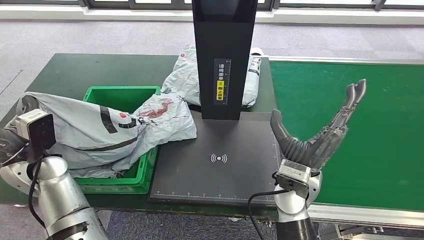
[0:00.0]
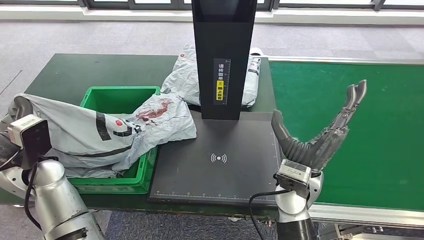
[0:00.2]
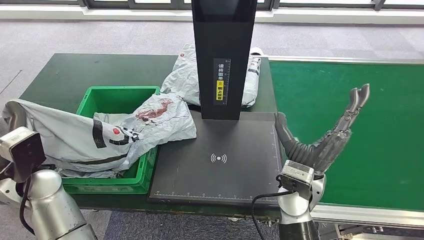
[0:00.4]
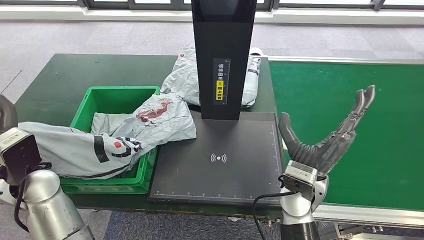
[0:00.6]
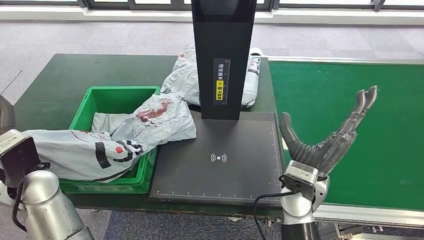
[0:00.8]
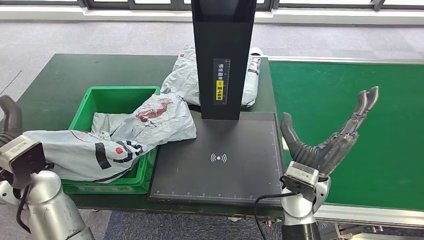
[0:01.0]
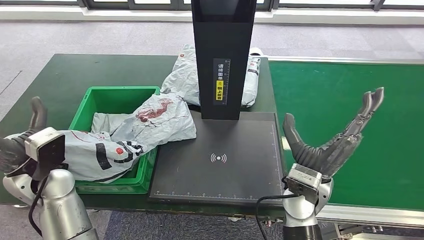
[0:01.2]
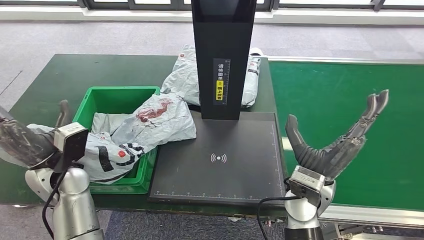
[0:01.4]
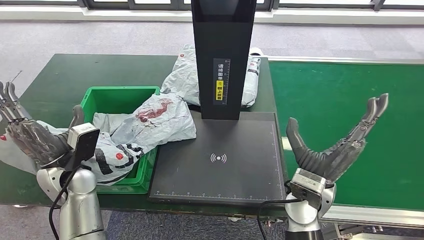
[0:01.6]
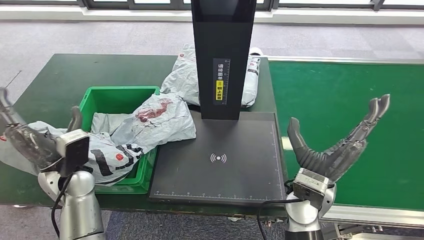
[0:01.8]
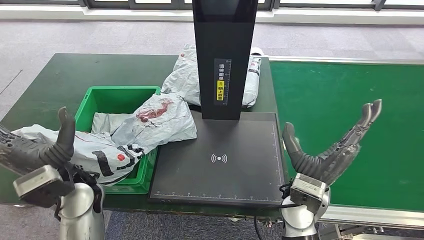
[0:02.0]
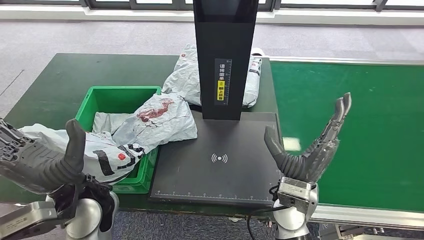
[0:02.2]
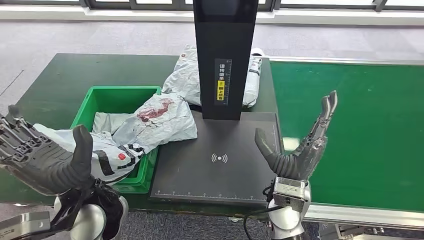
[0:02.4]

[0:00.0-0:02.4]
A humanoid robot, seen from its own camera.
Step, 0:00.0 to 0:02.2: Place the parcel into the delivery box.
0:00.0 to 0:01.2: The hands move only a little.

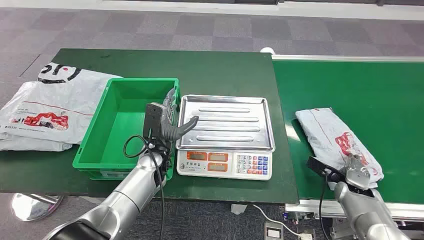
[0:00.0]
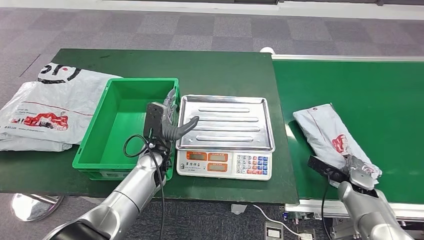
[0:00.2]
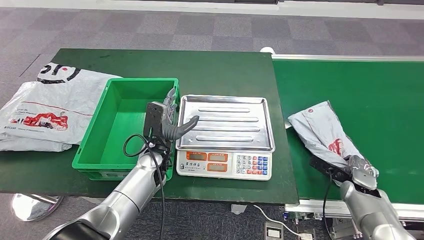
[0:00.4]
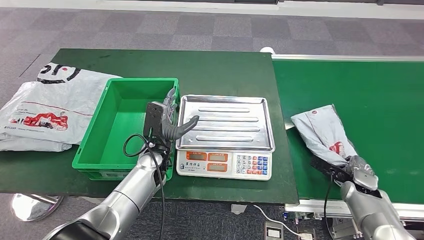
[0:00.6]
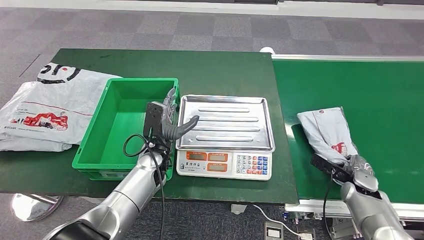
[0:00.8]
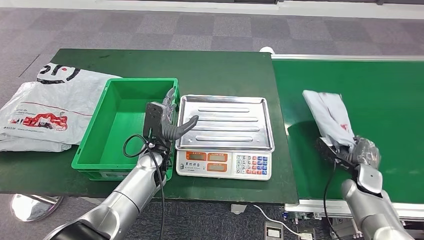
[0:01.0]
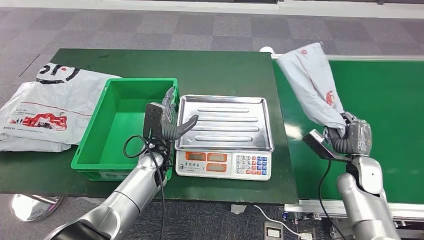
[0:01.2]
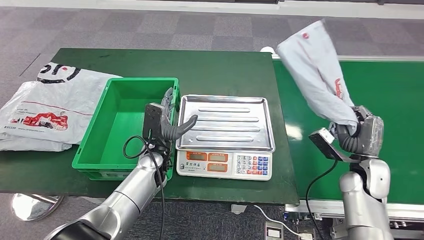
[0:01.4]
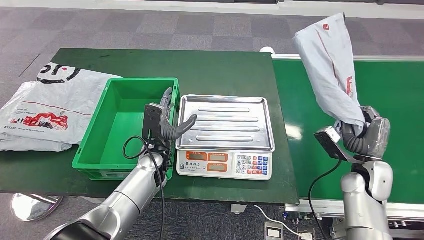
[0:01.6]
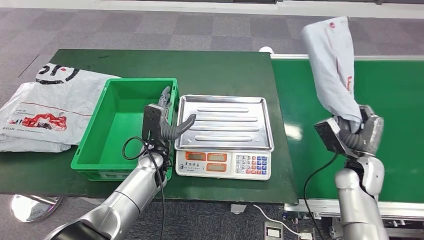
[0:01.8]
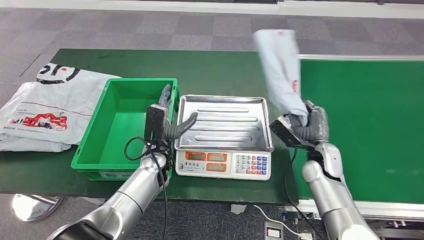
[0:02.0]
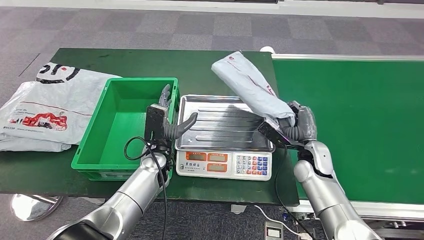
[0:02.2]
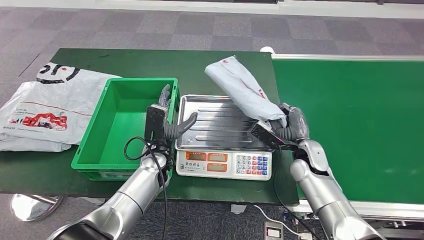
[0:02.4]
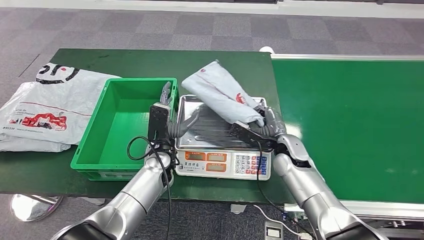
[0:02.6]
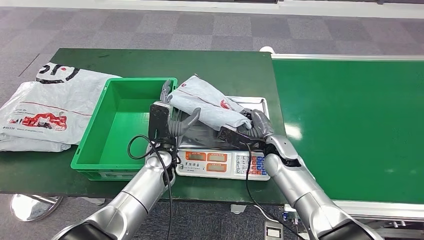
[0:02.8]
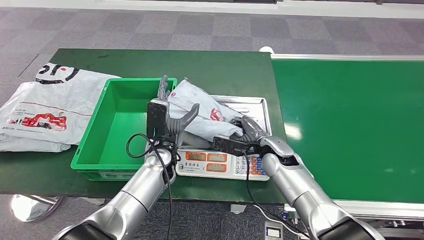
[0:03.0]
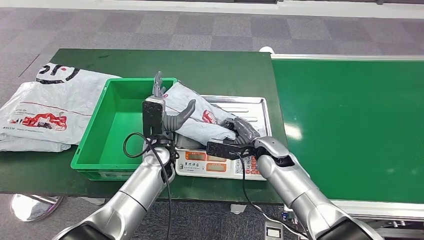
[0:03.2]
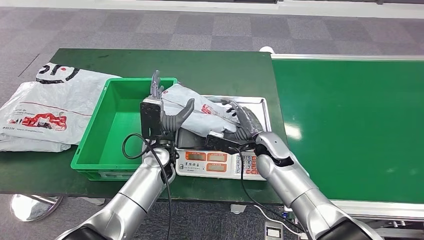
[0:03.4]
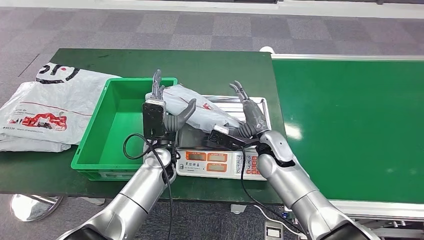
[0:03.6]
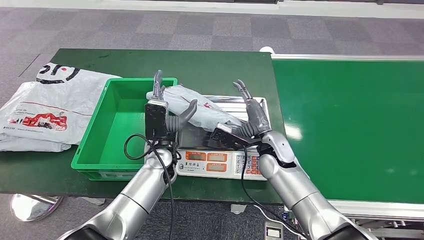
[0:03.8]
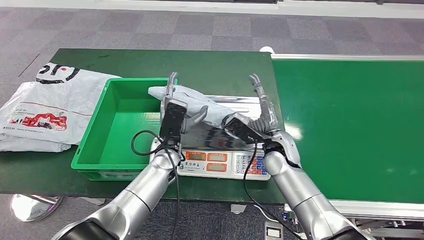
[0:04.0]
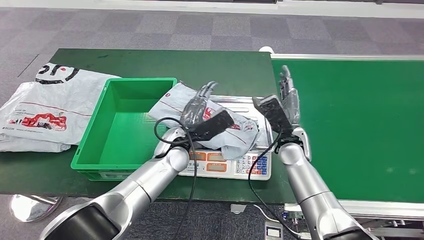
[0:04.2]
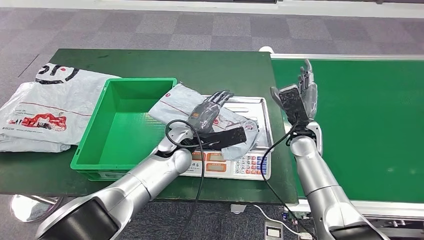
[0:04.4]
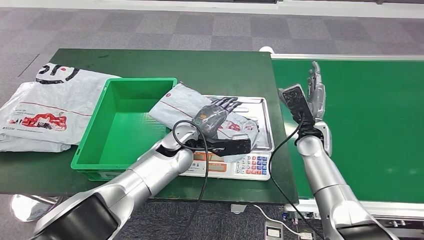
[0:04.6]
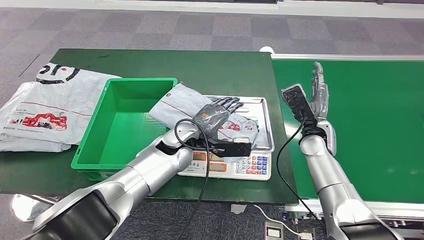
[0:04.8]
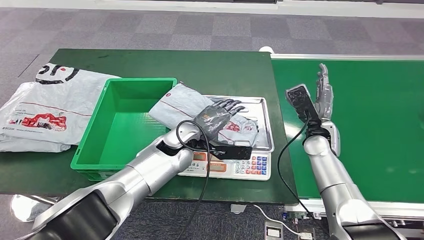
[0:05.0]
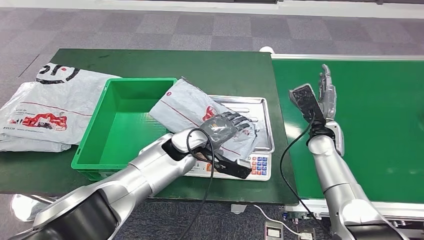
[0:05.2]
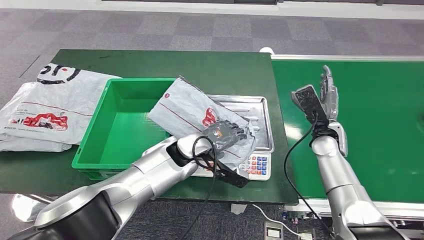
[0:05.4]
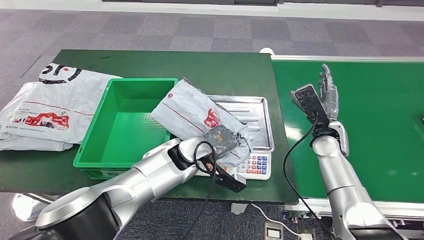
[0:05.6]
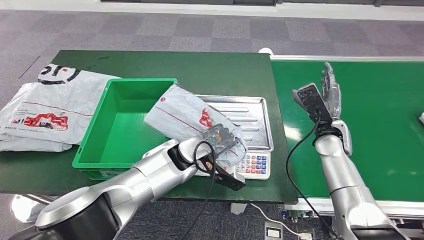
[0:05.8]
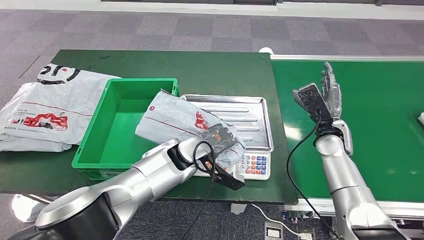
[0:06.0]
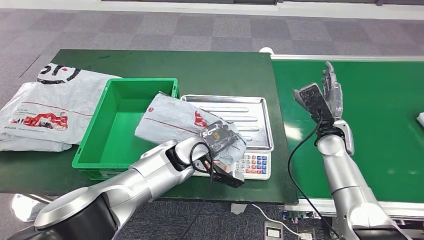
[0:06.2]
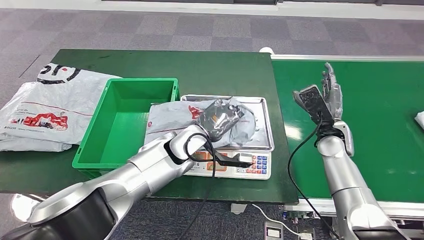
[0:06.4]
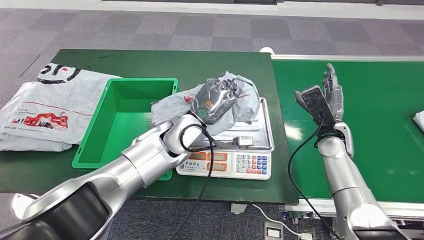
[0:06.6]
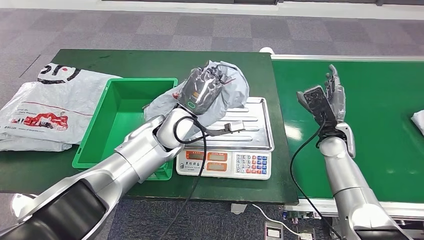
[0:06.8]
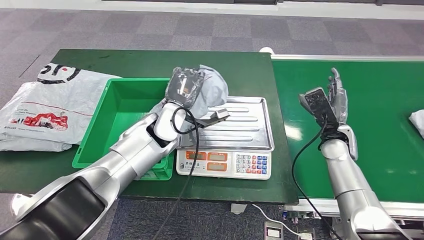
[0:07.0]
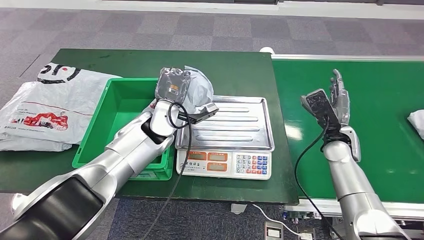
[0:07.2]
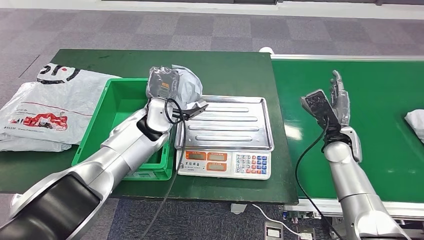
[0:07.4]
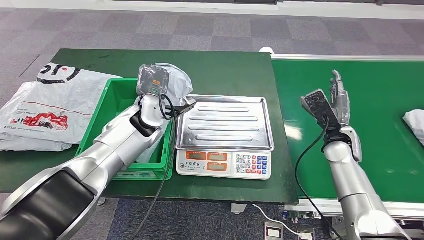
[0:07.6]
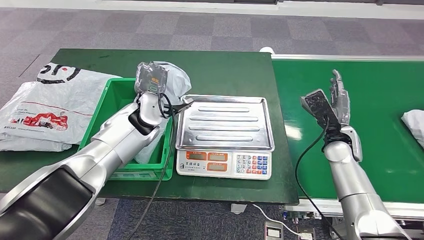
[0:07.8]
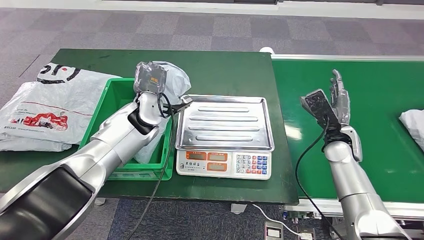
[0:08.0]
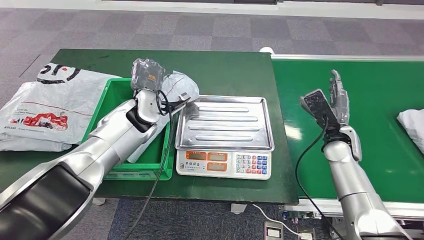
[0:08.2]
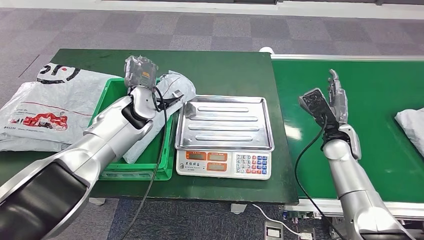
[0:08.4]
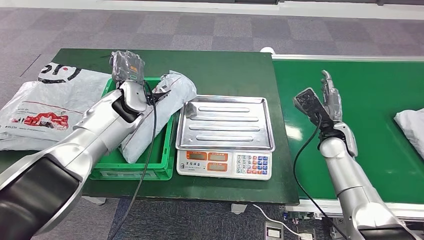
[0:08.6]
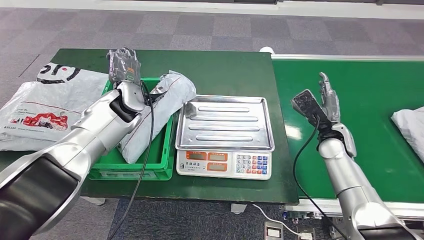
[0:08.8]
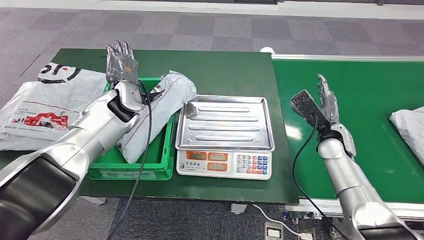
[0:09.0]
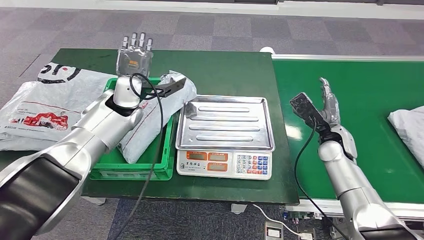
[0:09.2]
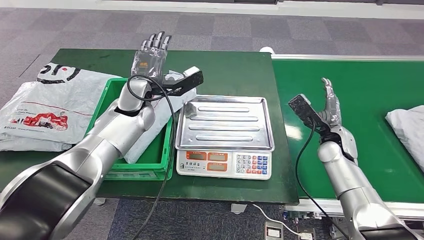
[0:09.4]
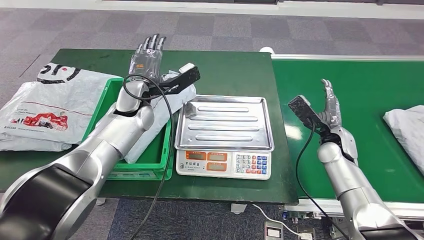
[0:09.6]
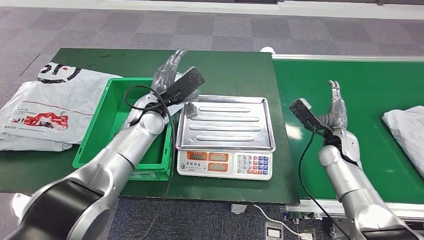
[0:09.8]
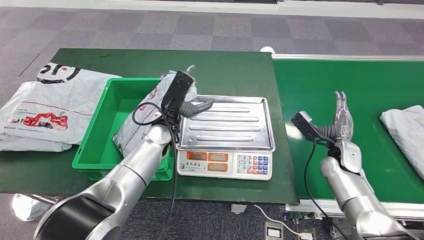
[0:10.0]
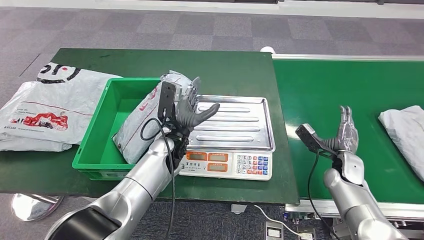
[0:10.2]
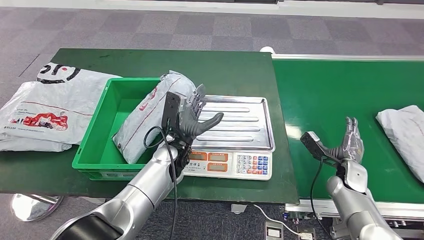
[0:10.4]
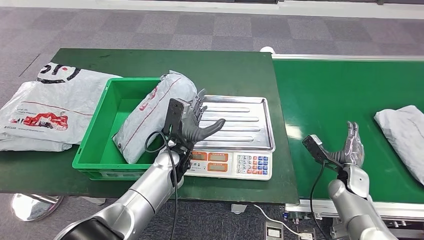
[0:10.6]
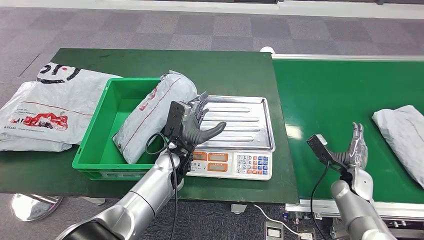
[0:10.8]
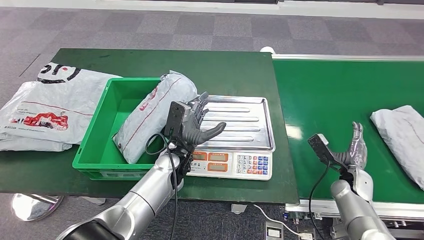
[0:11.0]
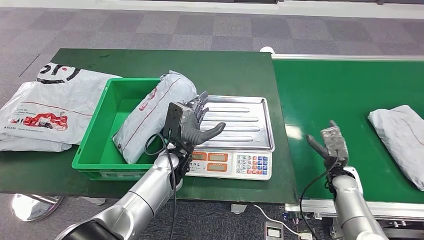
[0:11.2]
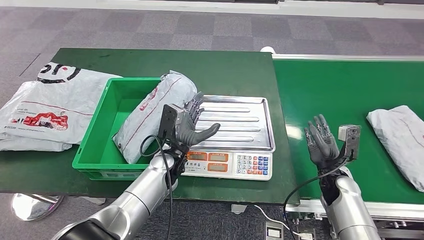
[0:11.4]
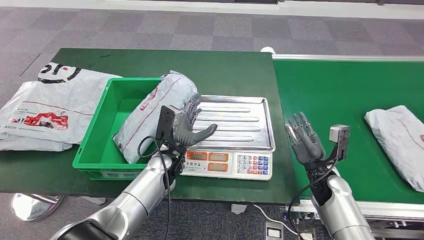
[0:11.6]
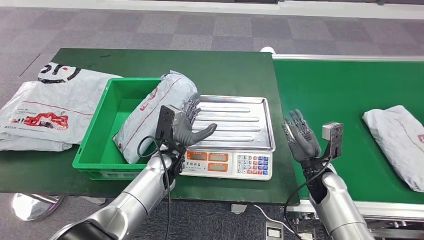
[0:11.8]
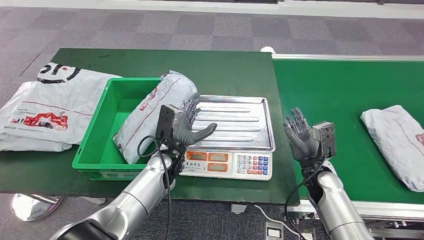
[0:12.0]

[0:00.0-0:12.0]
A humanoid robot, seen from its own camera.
Step, 0:00.0 to 0:01.6: Take the parcel off the conveyor belt.
Step, 0:02.0 to 0:04.2: Place the parcel onto the inbound machine.
Step, 0:04.4 to 0:07.2: Pick up the parcel from the inbound machine.
Step, 0:07.4 to 0:09.6: Put the parcel inside the courier box.
0:03.0 to 0:04.4: The right hand is displaced to the right by some 5 cm; the left hand ends up approximately 5 cm from where it was.
0:10.4 to 0:12.0: The right hand is displaced to the left by some 10 cm.

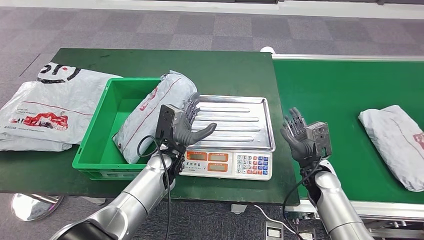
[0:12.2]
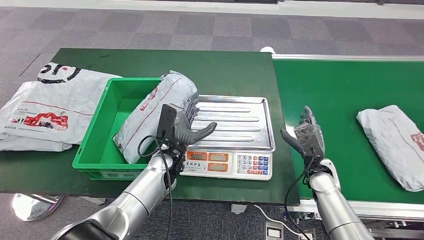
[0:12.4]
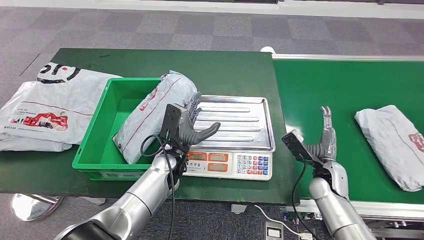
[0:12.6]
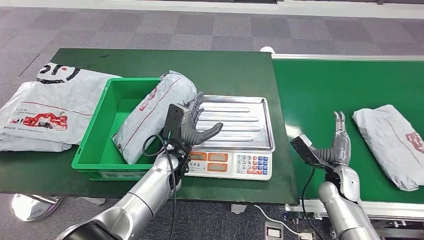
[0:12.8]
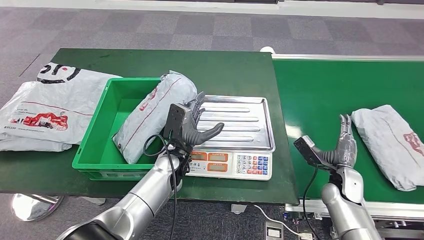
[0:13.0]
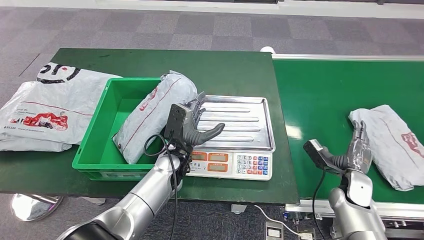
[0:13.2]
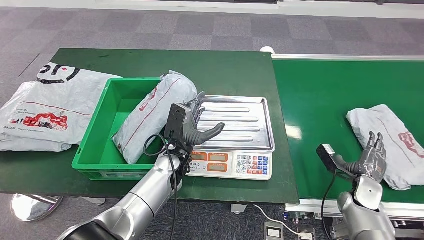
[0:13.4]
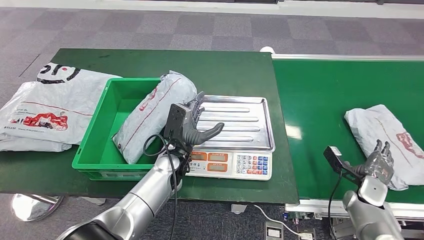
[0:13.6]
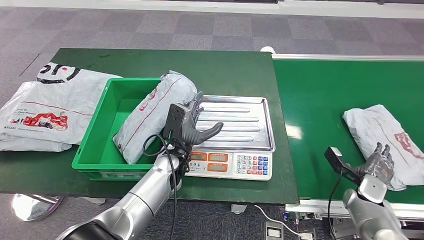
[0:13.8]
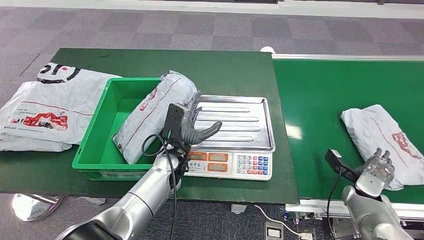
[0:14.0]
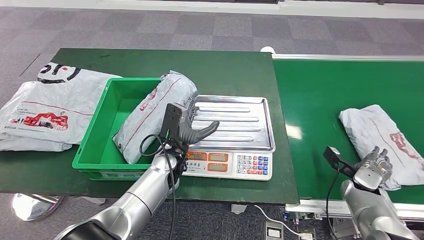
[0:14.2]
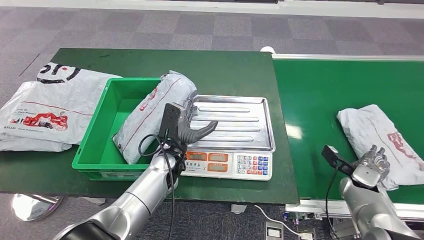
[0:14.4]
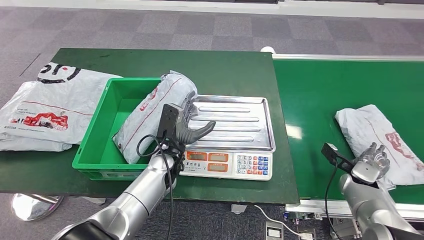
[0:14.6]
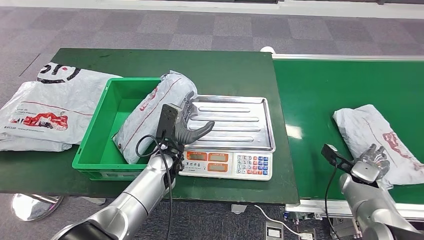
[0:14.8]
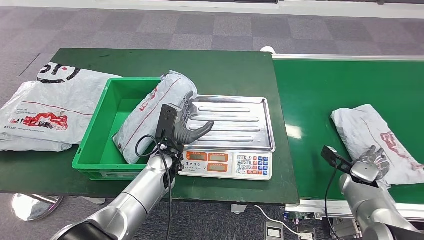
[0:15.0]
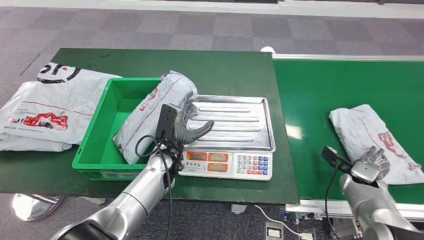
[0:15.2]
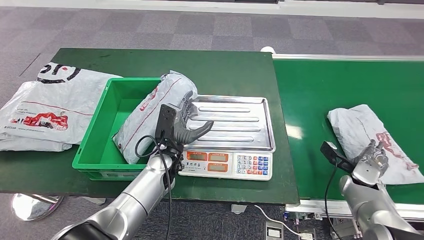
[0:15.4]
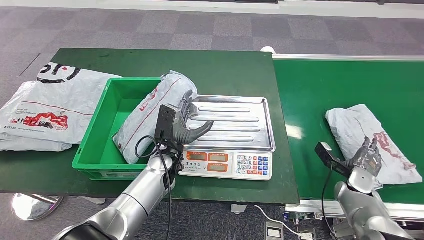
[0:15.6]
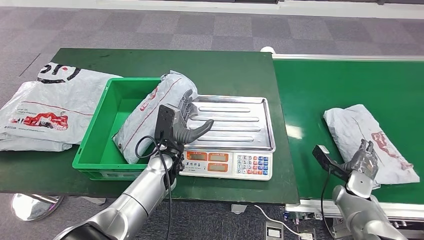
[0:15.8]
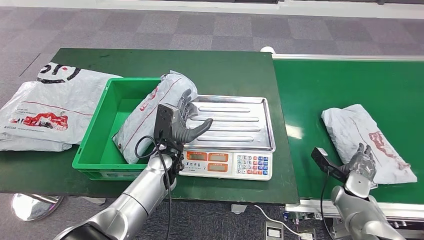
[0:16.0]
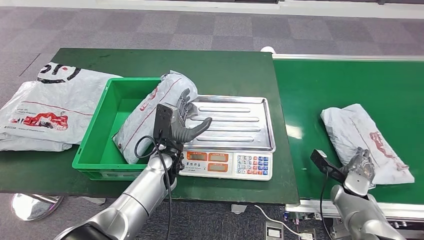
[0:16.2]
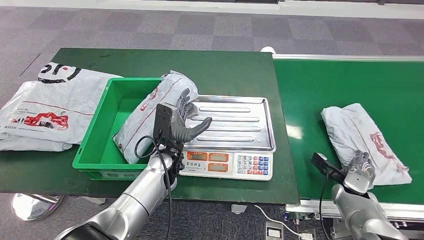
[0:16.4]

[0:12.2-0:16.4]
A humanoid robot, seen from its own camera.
0:12.2 to 0:13.6: The right hand goes approximately 15 cm to the right.
0:15.0 to 0:16.4: There are only small adjustments of the hands.
